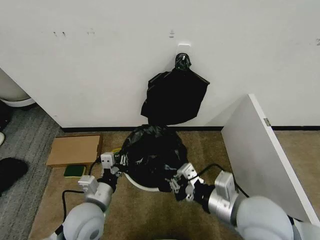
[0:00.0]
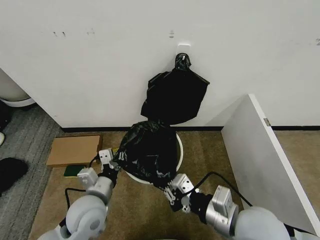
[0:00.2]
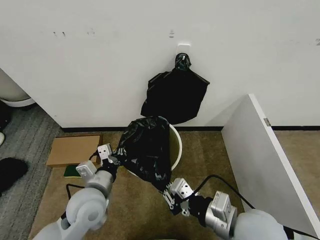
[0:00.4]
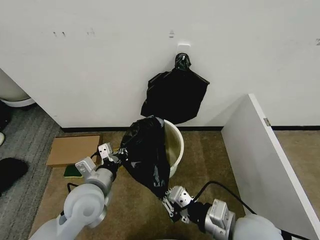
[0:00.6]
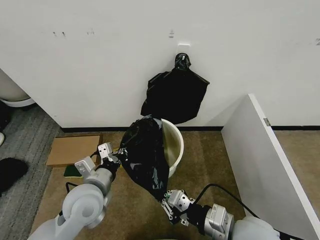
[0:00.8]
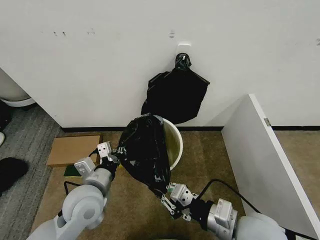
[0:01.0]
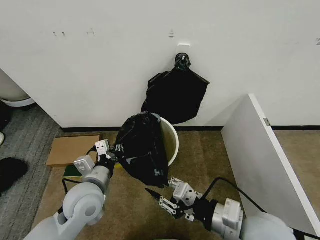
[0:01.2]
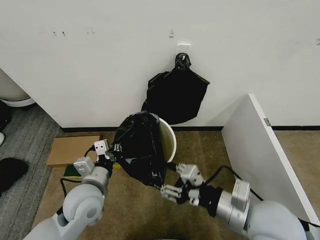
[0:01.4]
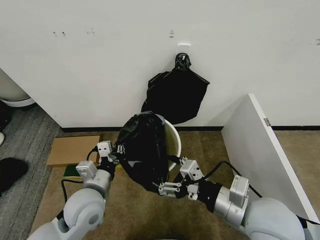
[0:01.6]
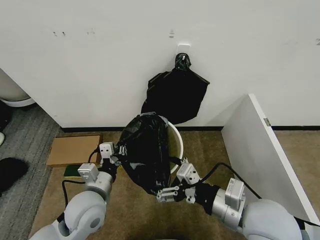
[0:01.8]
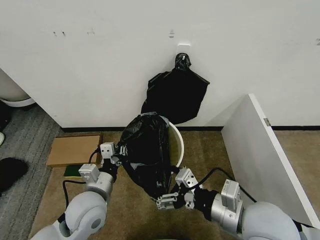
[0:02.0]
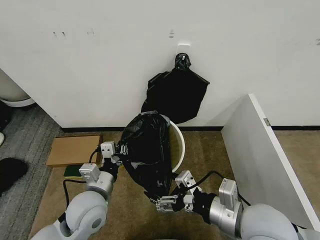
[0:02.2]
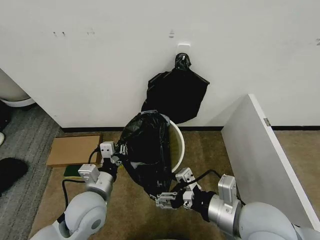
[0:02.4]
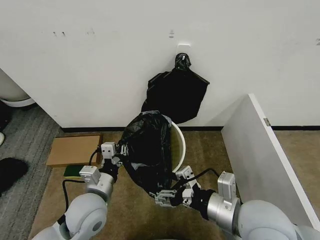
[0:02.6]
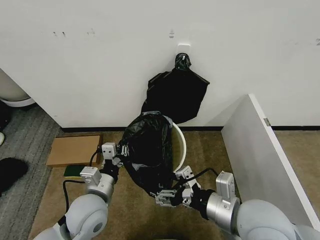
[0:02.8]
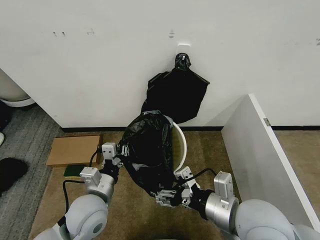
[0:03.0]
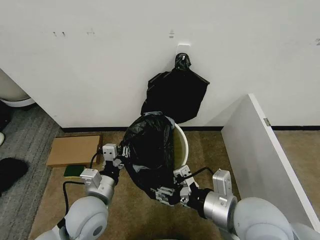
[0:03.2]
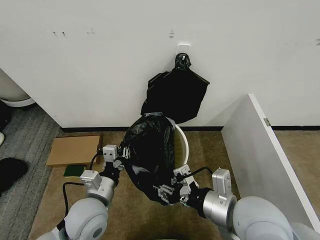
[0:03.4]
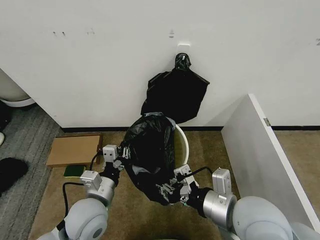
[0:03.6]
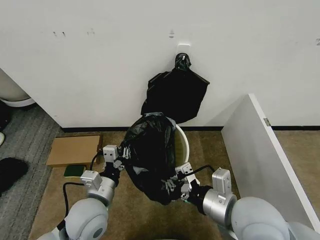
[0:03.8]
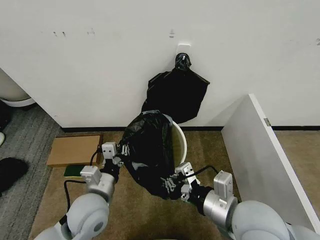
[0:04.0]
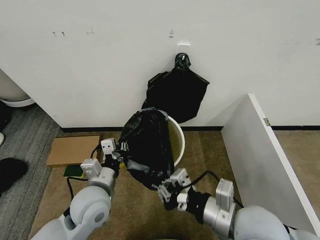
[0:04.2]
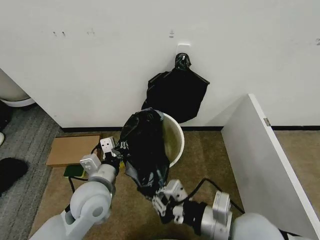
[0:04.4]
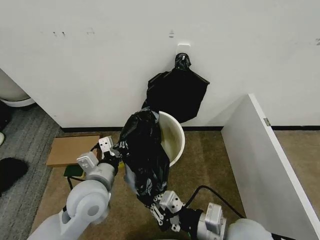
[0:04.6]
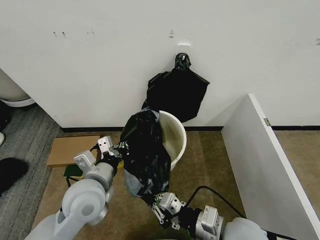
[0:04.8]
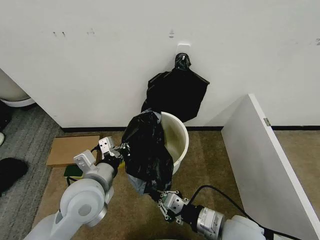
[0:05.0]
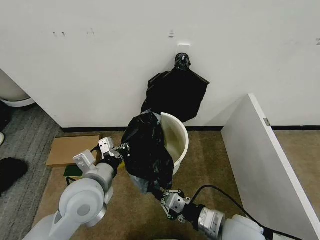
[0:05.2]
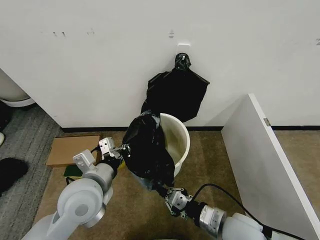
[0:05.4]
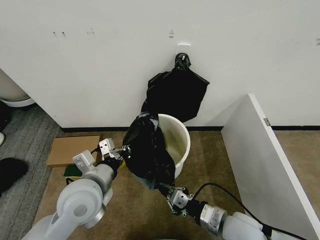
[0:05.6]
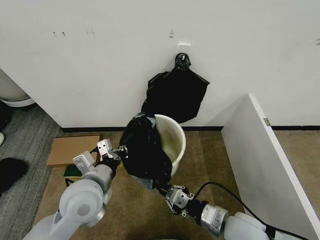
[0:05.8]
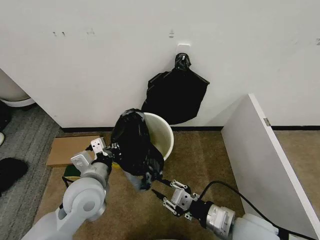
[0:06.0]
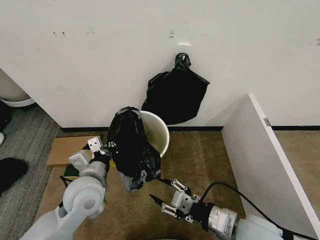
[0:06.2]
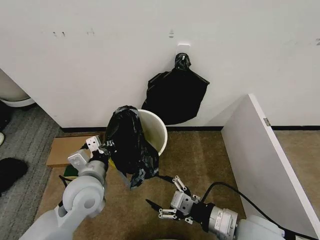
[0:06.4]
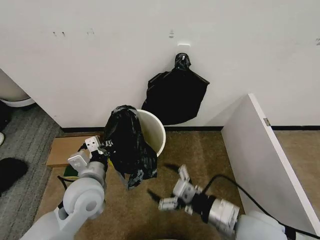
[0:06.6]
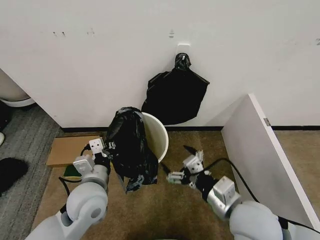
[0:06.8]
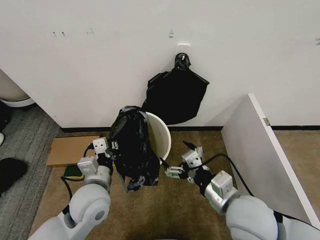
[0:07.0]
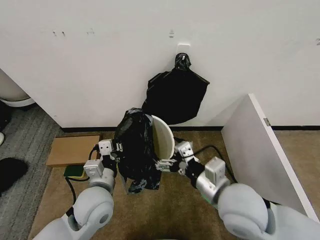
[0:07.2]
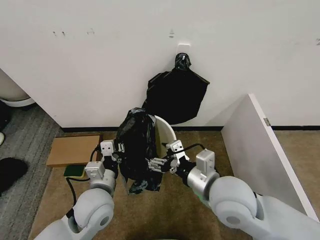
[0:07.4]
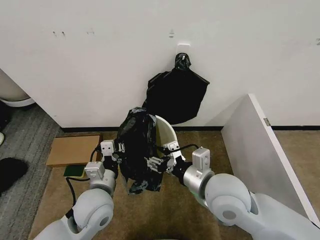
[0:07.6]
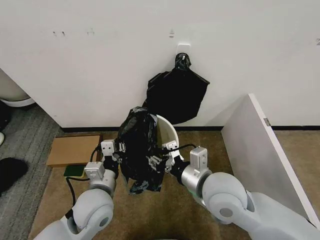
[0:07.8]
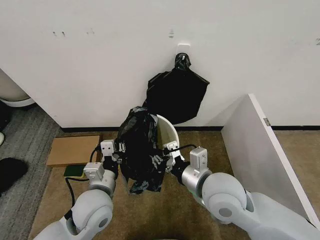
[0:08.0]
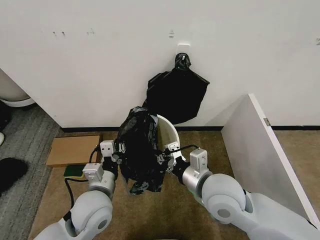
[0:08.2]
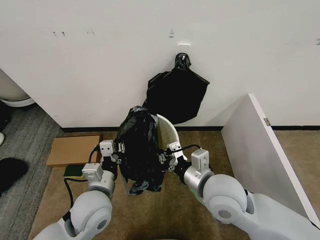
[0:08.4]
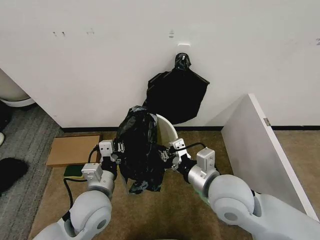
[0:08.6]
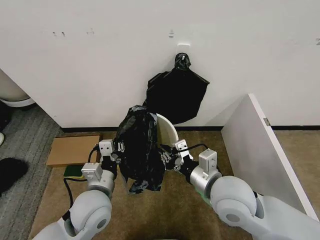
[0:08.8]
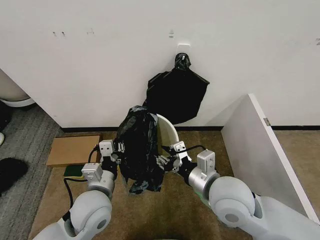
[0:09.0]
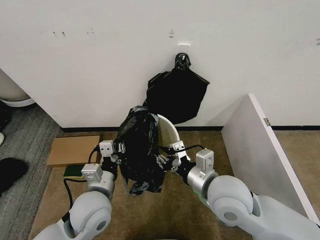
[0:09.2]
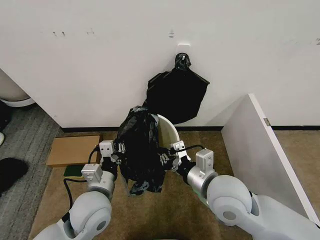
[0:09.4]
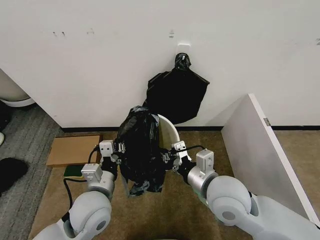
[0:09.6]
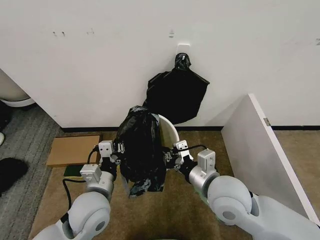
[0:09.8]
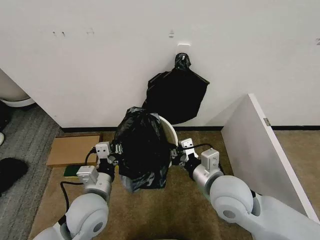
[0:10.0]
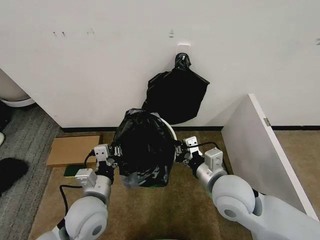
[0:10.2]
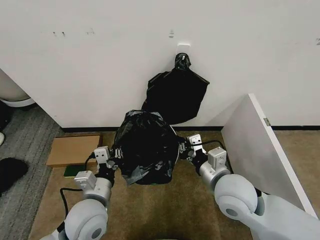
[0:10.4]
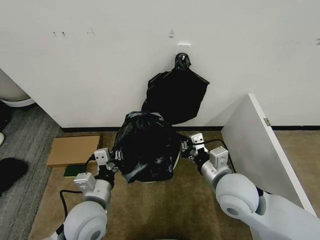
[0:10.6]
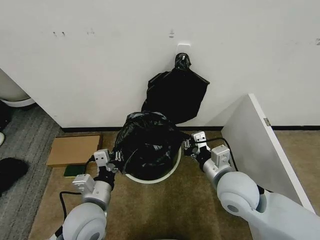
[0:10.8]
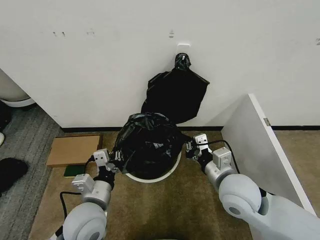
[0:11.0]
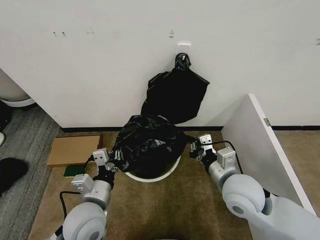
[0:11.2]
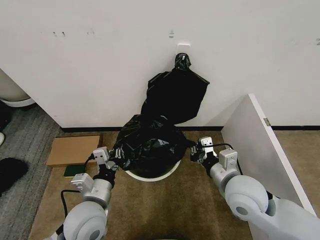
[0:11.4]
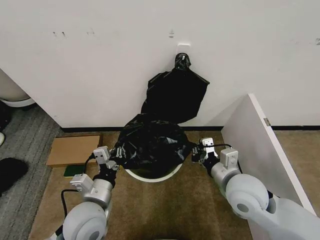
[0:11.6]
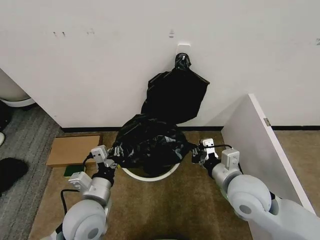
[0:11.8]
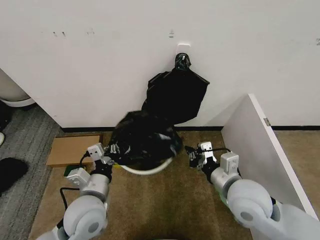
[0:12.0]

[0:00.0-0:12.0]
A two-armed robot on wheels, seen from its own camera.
Task of the whole recording: Place the garbage bag over the trash bin.
0:00.0 to 0:01.6: The right gripper opens up.
0:03.0 to 0:04.4: The right gripper closes.
0:04.4 to 0:06.0: The right gripper is displaced downward by approximately 5 cm.
0:06.0 to 0:07.6: The right gripper goes some 15 cm upward, to the left and forward, and opens its fingers.
0:07.6 to 0:09.0: The right gripper closes and opens again.
0:09.0 to 0:10.4: The right gripper closes its fingers.
0:10.4 to 0:12.0: The grippers stay close to where they were, moving slightly.

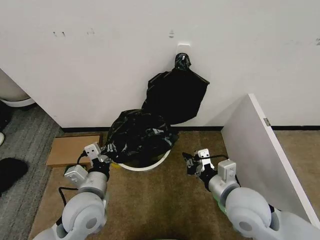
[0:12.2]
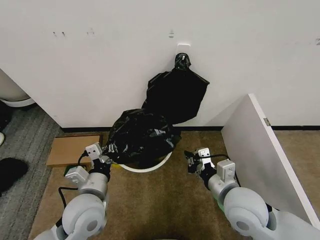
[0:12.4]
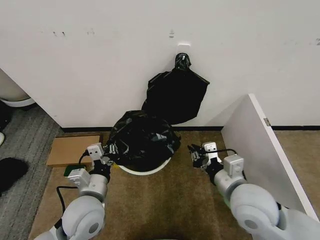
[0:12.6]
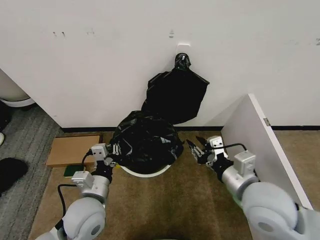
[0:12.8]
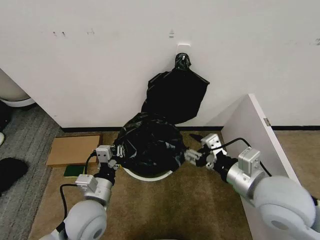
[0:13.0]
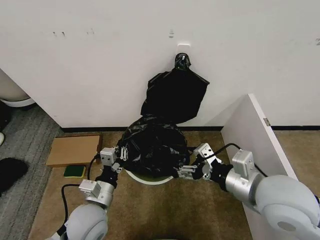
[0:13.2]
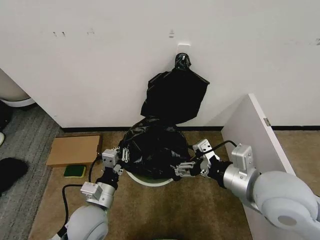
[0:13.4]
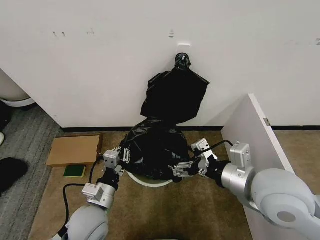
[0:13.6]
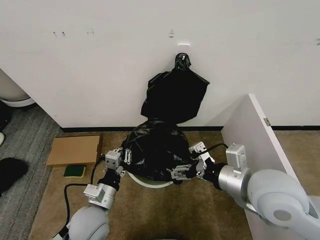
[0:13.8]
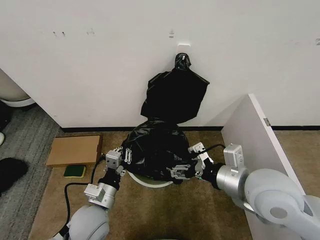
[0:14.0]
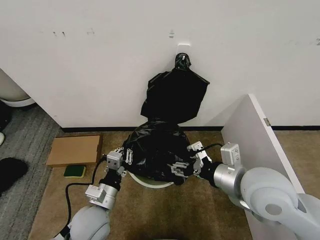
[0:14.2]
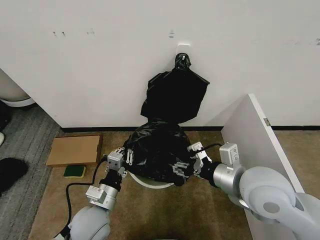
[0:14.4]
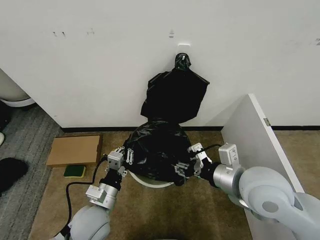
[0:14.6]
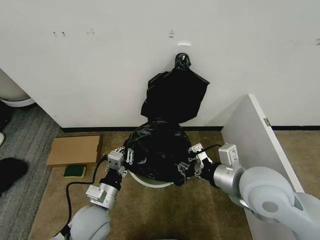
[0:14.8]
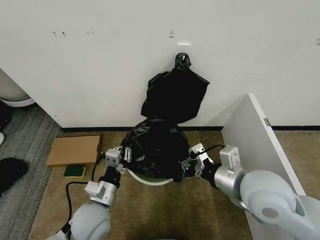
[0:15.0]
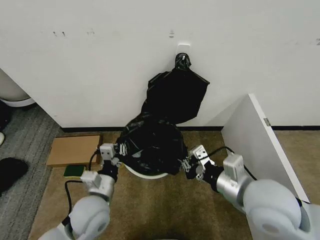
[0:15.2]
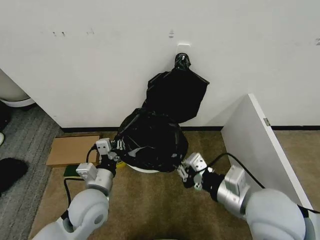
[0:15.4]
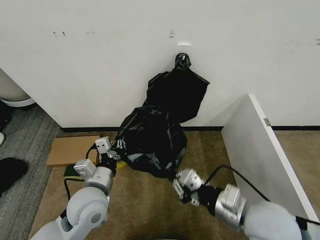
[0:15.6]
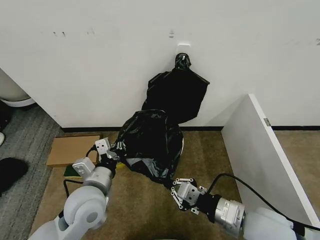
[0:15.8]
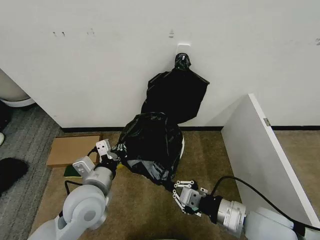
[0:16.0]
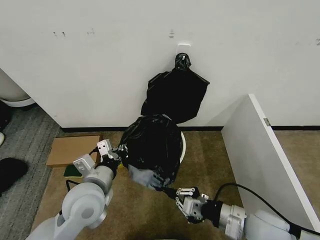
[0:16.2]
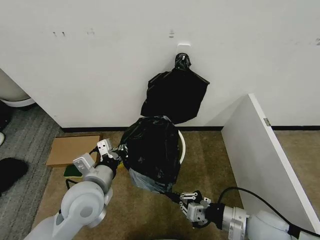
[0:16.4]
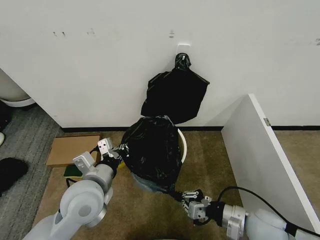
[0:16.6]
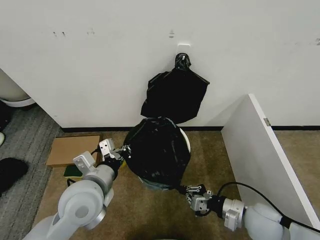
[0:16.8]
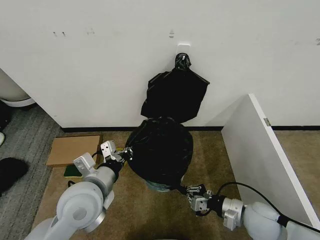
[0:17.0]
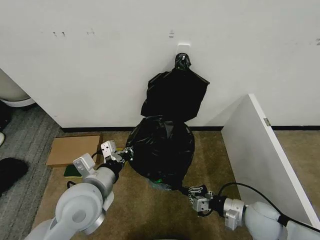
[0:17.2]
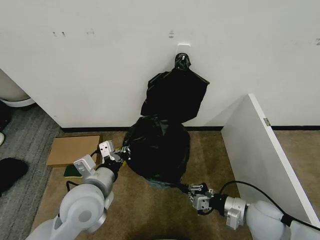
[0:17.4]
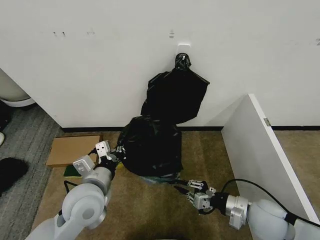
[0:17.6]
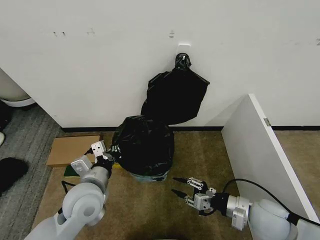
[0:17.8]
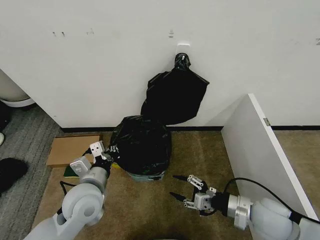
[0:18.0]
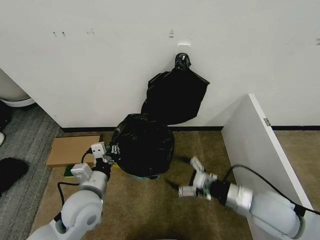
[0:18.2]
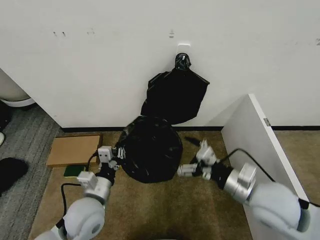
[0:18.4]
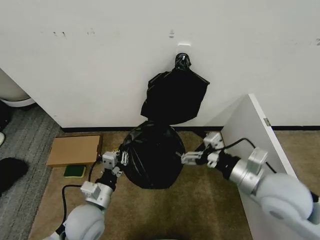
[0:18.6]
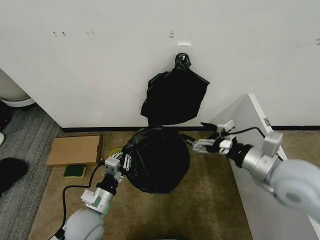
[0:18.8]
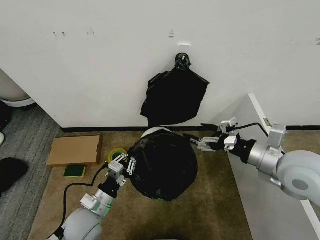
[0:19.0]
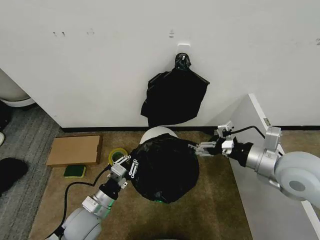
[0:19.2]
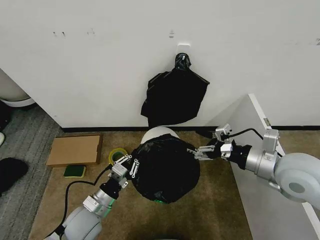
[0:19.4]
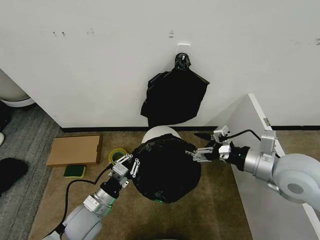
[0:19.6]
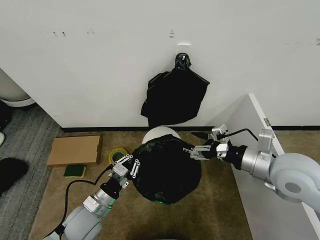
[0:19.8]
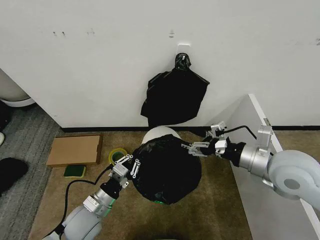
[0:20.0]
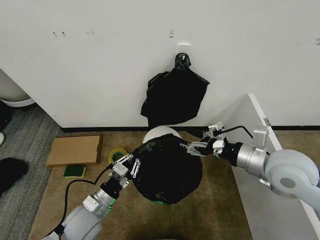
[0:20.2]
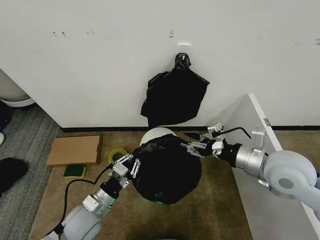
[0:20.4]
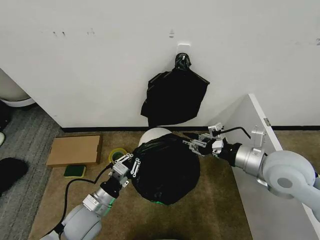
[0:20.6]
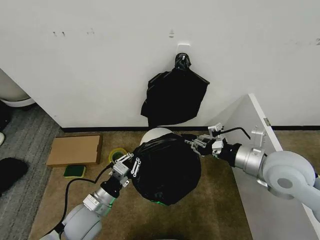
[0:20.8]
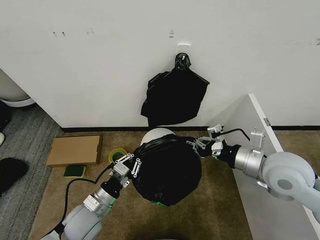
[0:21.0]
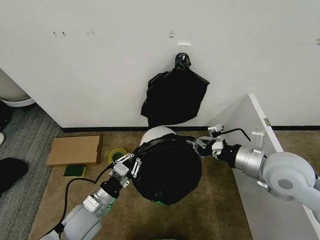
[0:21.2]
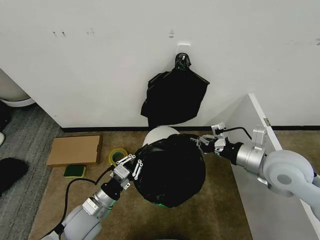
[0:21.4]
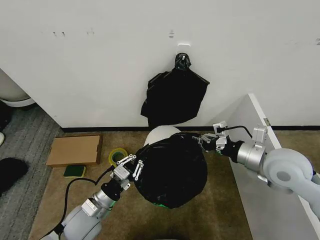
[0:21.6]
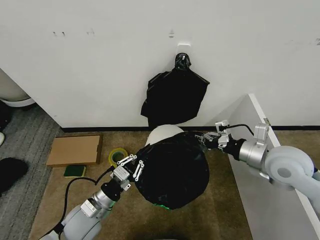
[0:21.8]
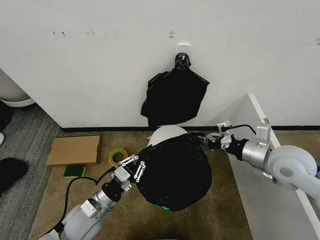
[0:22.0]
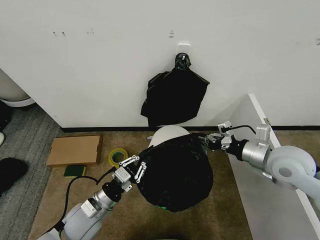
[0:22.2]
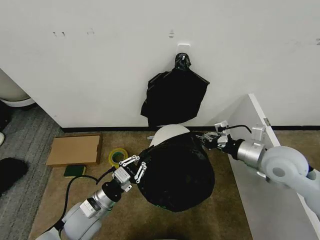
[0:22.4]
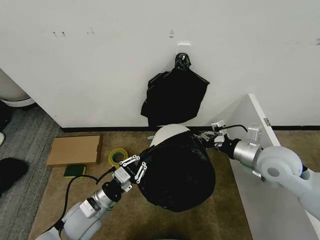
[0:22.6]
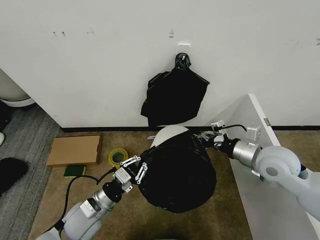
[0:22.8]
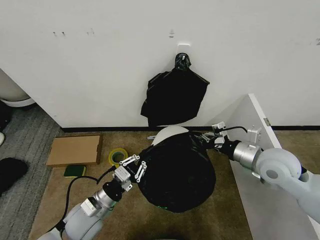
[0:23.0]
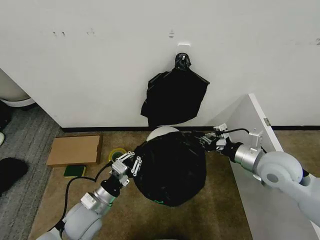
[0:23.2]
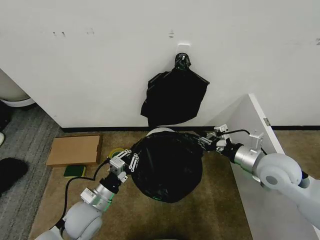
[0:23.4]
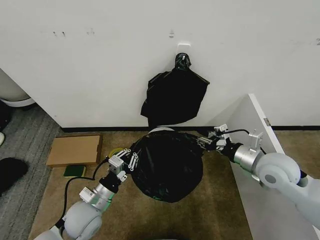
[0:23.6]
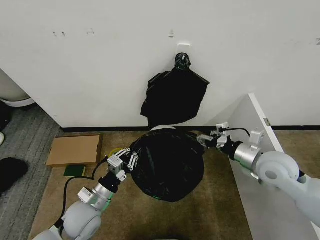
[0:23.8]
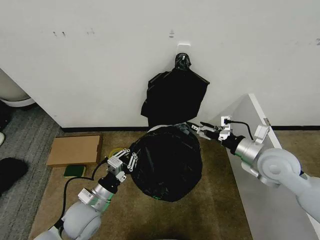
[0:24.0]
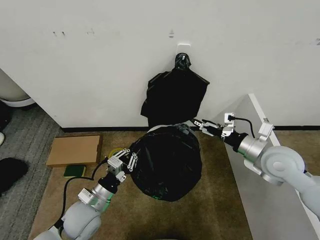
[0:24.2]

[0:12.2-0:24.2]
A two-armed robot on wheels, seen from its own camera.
Task of the whole recording: Place the garbage bag over the trash bin.
0:12.2 to 0:13.8: The left gripper ends up roughly 5 cm from where it was. The right gripper goes approximately 10 cm upward, and opens its fingers.
0:13.8 to 0:15.2: The right gripper closes.
0:15.2 to 0:16.6: The right gripper travels downward by about 15 cm; the left gripper moves upward, roughly 10 cm.
0:16.6 to 0:18.2: The left gripper moves downward, roughly 5 cm. Meanwhile the right gripper heads upward, covering some 5 cm, and opens its fingers.
0:18.2 to 0:19.8: The right gripper shifts roughly 10 cm upward; the left gripper goes roughly 10 cm downward.
0:19.8 to 0:21.2: The right gripper closes.
0:21.2 to 0:22.6: The right gripper shifts by approximately 5 cm.
0:22.6 to 0:24.2: The right gripper opens.
